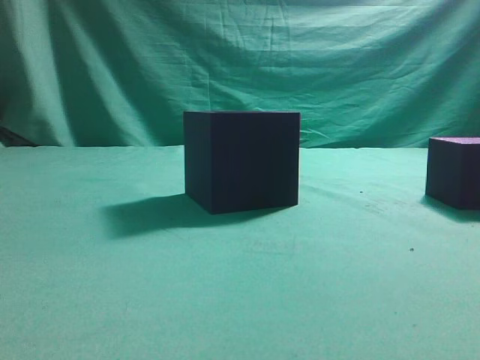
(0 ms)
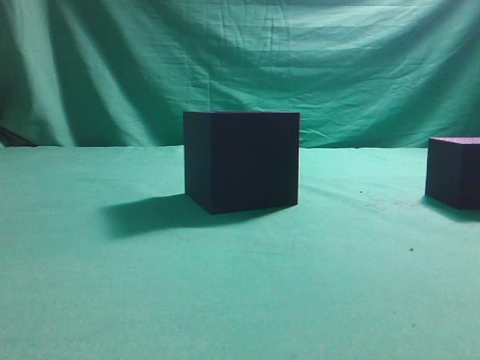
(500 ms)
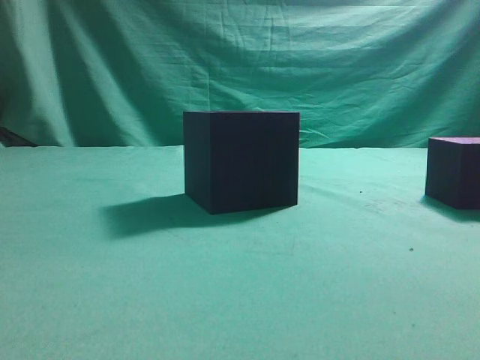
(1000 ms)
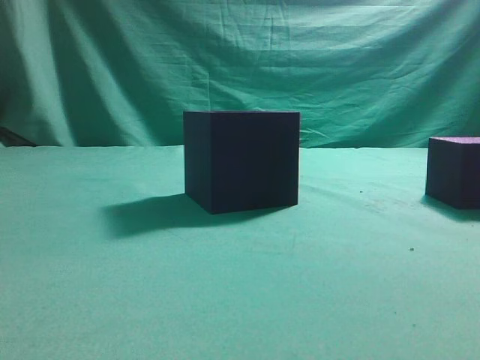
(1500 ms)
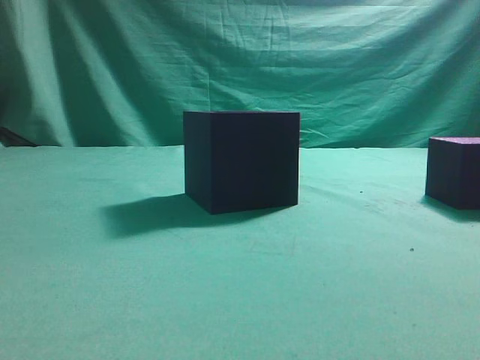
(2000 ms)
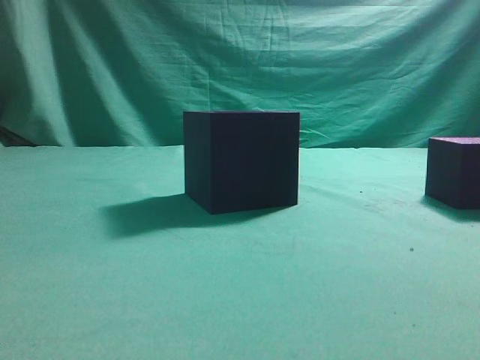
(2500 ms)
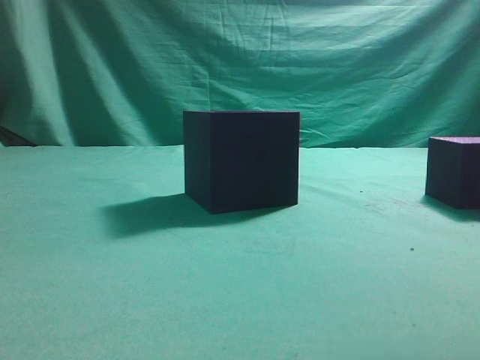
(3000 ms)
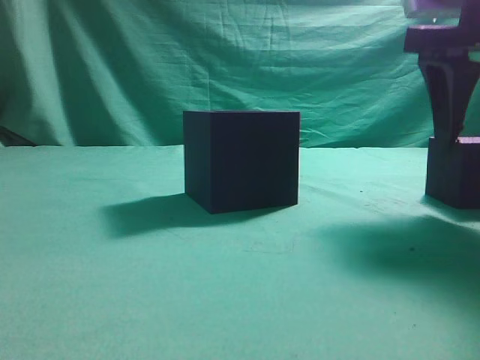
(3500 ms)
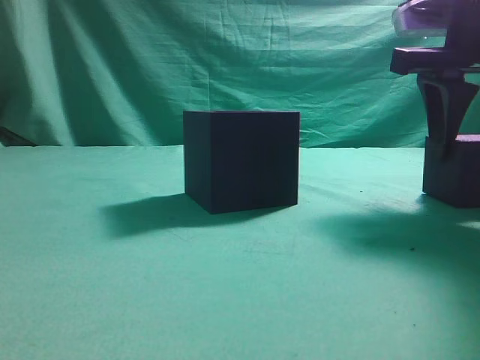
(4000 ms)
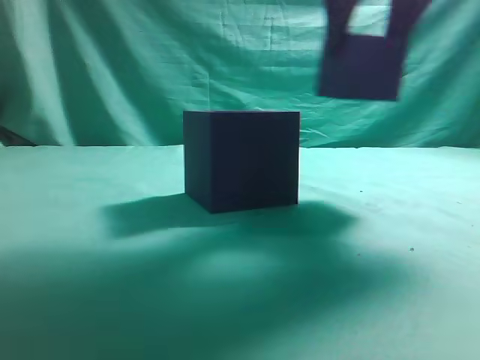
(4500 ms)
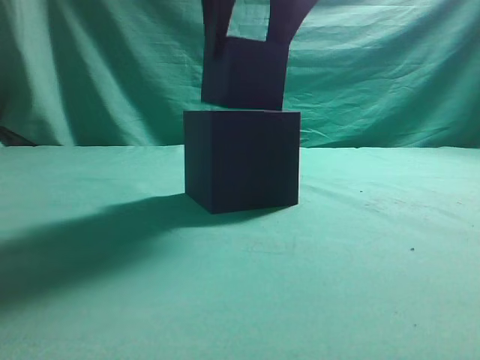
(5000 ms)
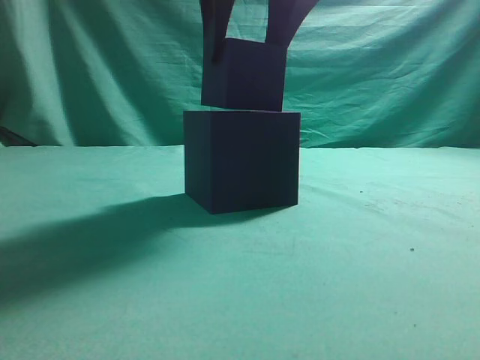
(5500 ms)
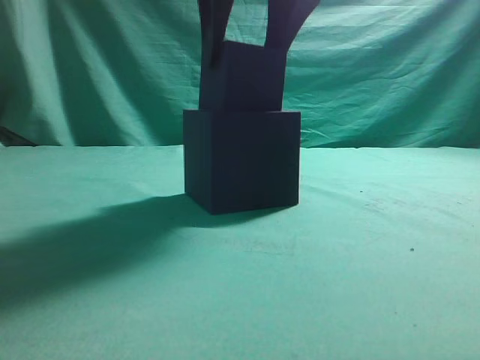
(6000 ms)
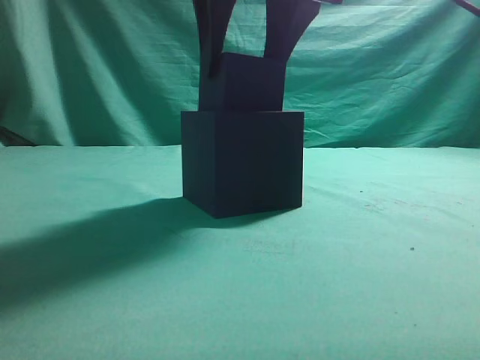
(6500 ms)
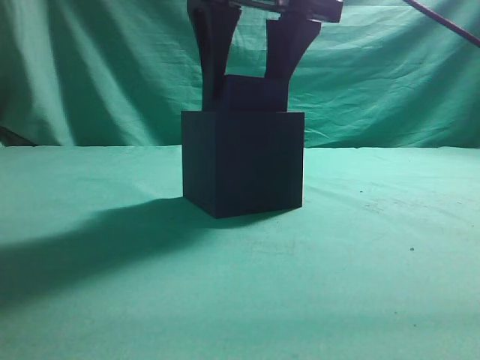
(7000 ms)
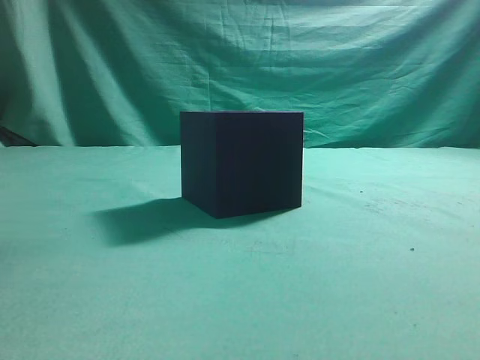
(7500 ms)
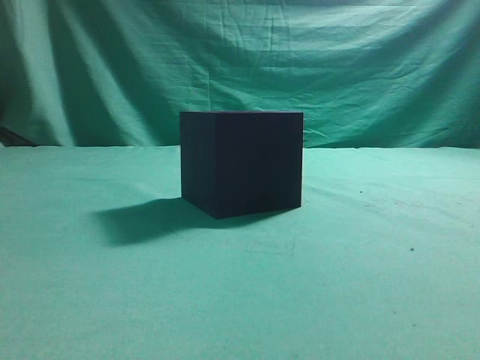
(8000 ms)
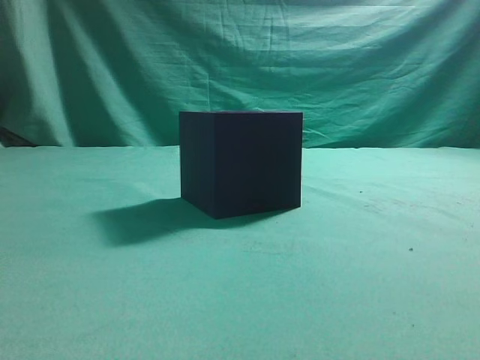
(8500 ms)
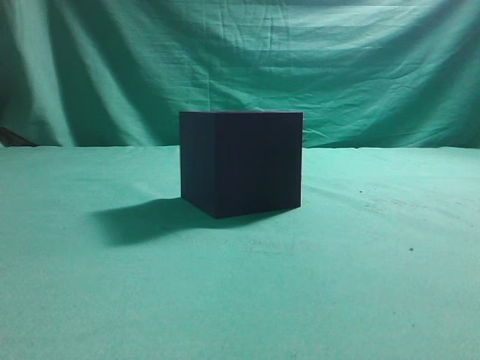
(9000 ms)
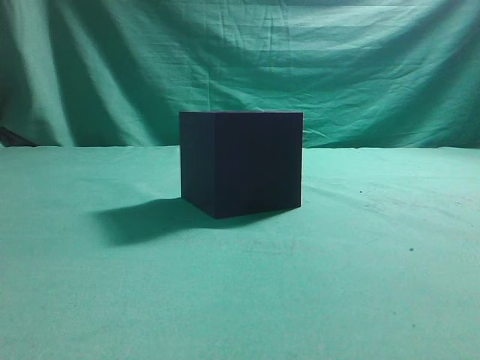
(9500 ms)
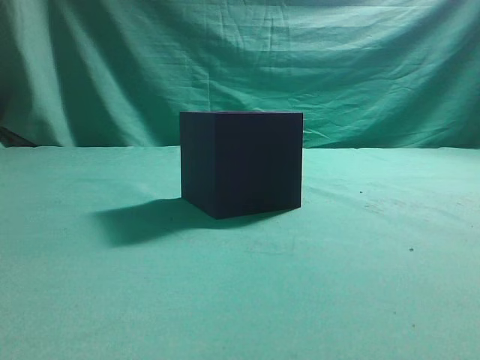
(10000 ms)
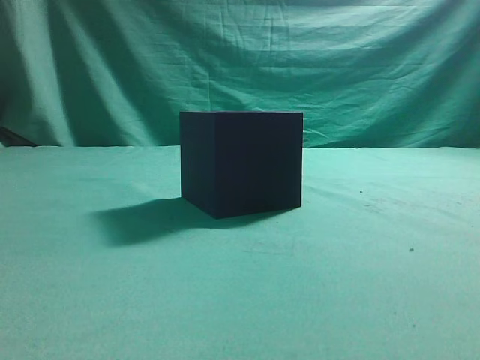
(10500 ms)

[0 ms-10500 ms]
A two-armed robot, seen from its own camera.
Task of the whole recording: pick up the cube block and place it into the cube groove.
Step, 0 ms to 4000 ms: Grasp the cube.
Step, 4500 ms to 7000 ms: Place cube into the cube-shaped recess.
2000 ms to 4000 ms: The right gripper goes approximately 20 cm forward, and opens up.
4000 ms to 6500 ms: The right gripper goes about 20 cm to the left and upward.
6500 ms to 8500 ms: The right gripper moves backward, to the right and upward, about 40 cm, and closes its fingers.

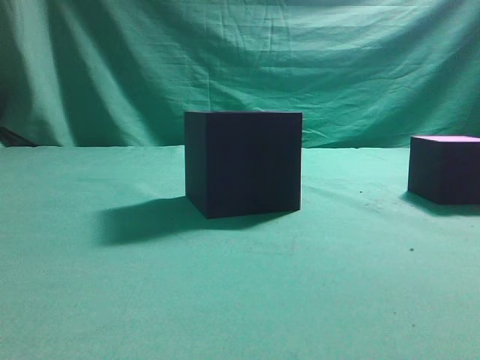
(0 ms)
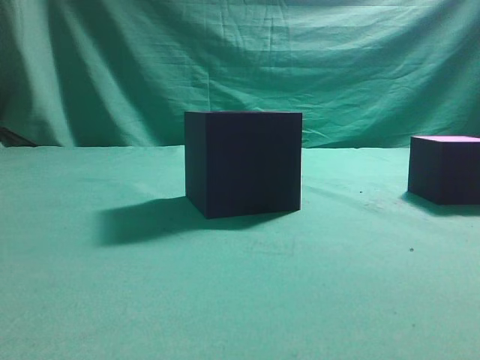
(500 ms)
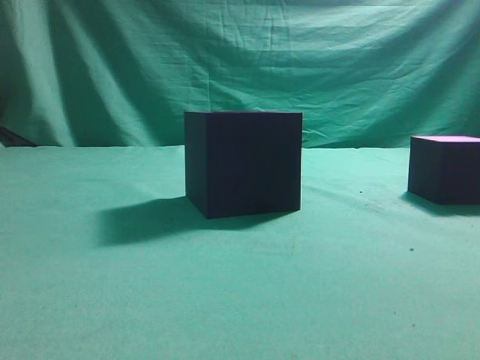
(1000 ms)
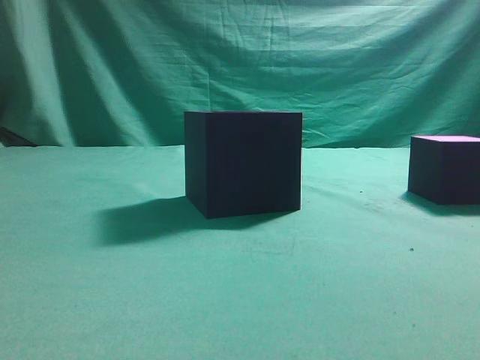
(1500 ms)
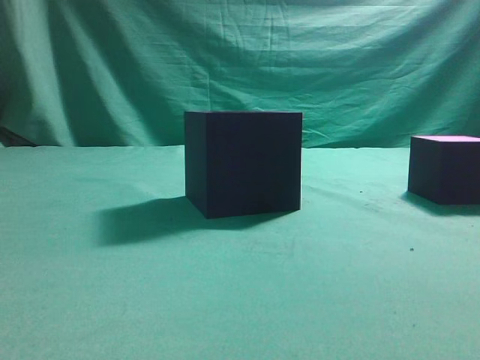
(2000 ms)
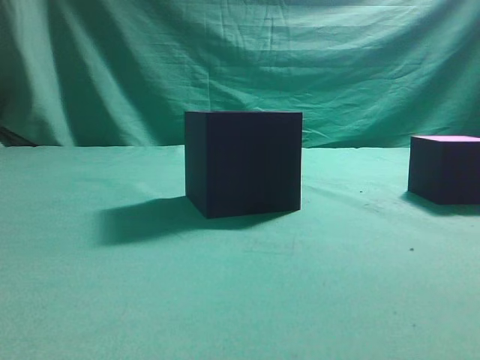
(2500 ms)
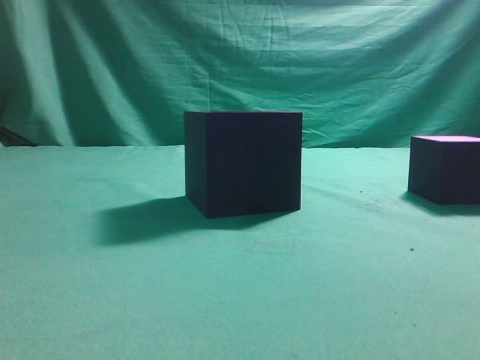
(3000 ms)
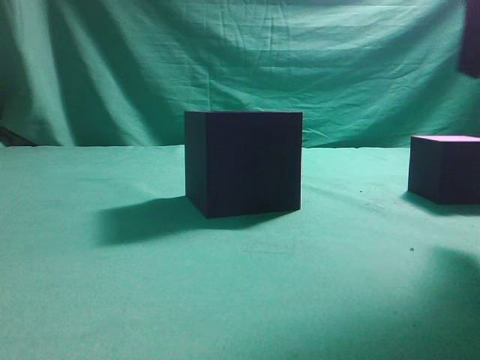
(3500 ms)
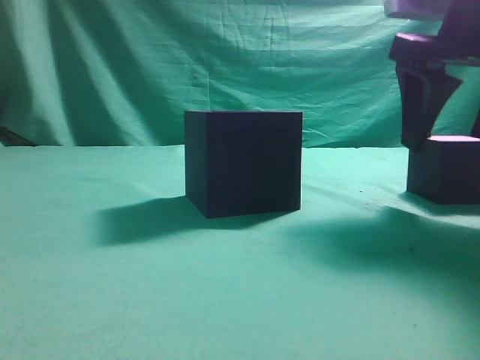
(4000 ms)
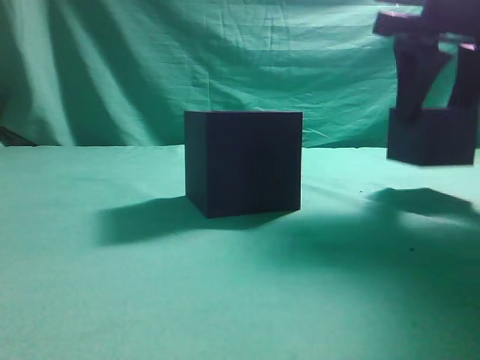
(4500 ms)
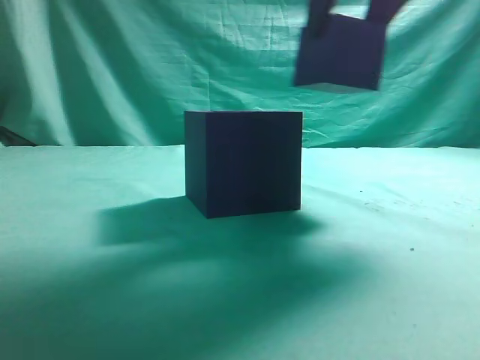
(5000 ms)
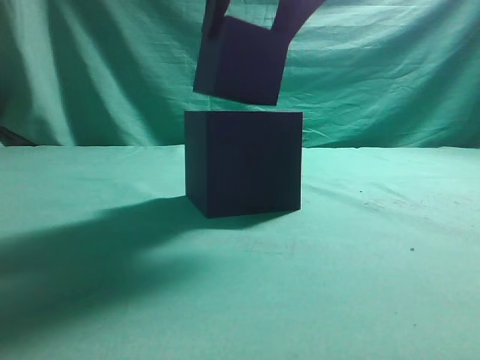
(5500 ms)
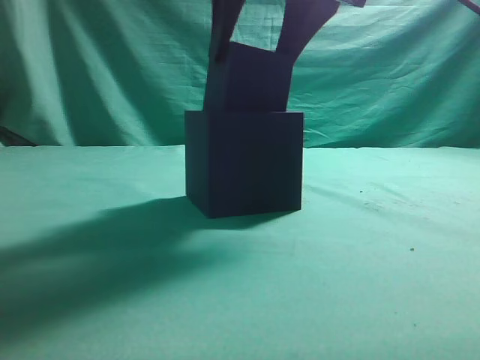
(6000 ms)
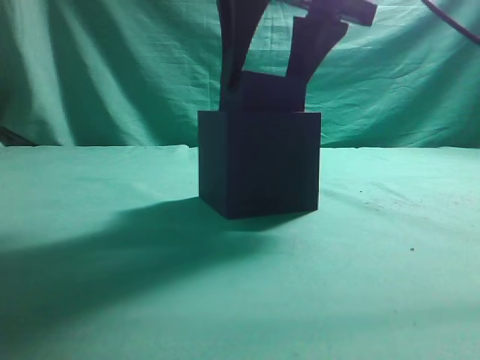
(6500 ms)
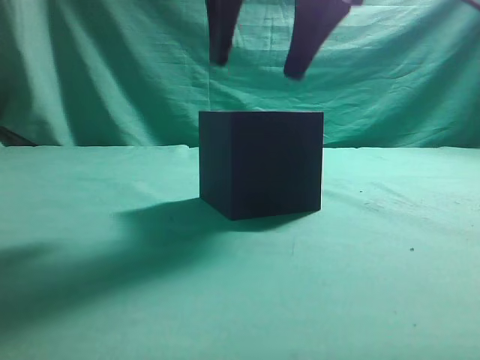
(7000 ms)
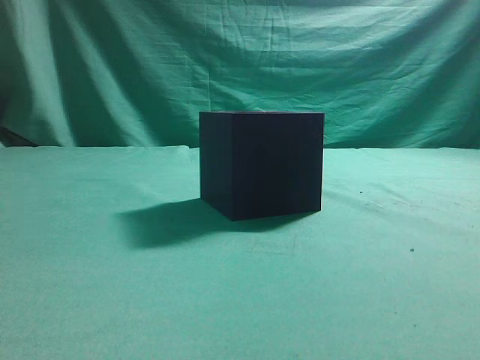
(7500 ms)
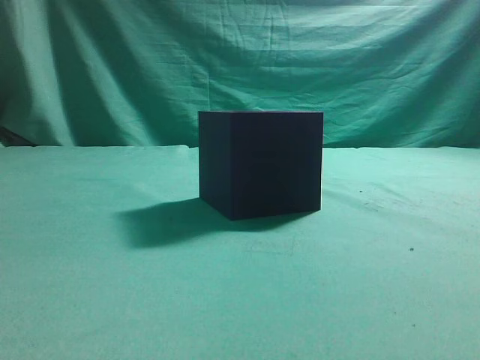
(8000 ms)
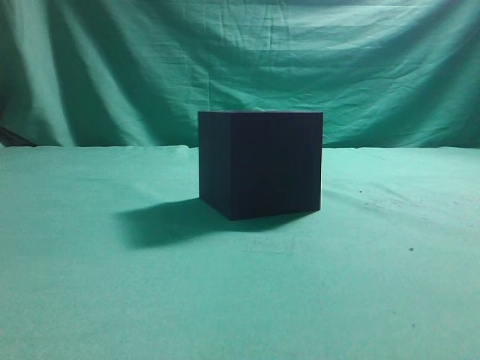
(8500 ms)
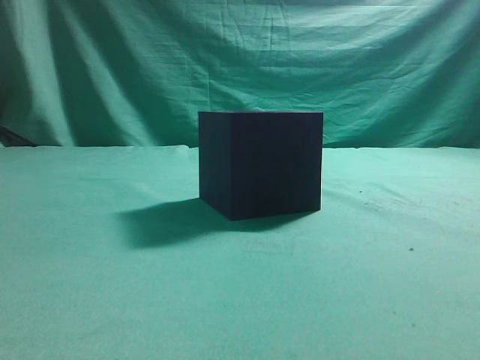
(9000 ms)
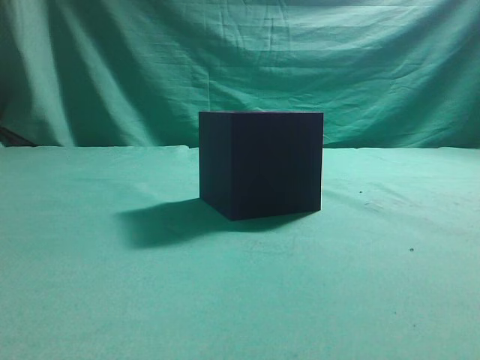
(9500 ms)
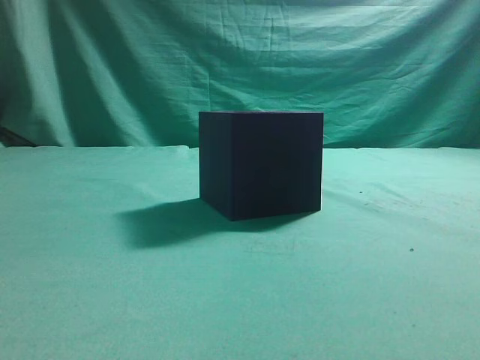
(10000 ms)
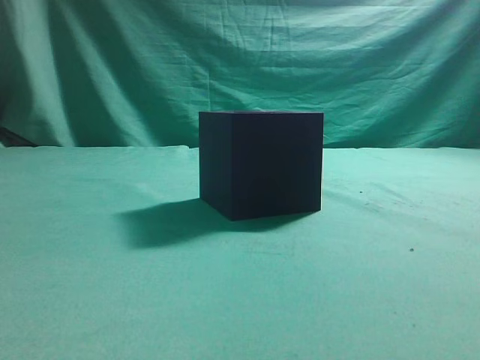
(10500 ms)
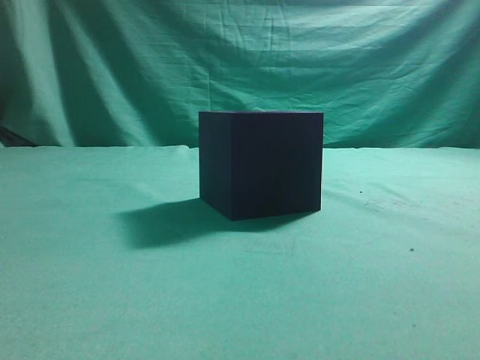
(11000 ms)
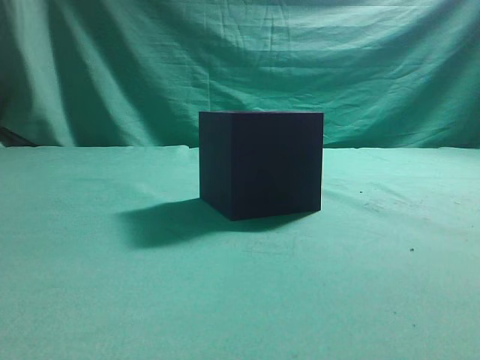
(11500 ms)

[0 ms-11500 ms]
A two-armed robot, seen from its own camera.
Task of the whole recording: pick up the cube block and place it into the cube groove.
Step, 0 ms to 4500 ms: Grasp the cube.
Step, 5000 ms to 7000 ms: Place cube into the cube-shaped recess.
2000 ms to 4000 ms: The right gripper travels forward by about 25 cm, and opens up.
4000 ms to 6000 ms: The right gripper is displaced to the left and upward by some 15 cm.
6000 ms to 7500 ms: The right gripper heads upward, covering approximately 10 cm, and closes its fingers.
